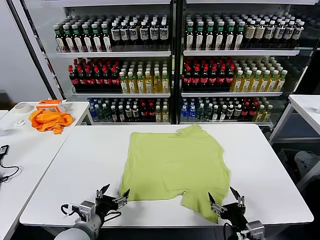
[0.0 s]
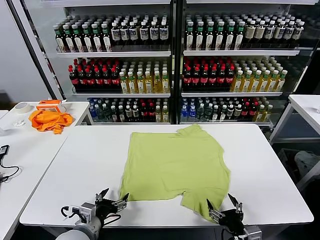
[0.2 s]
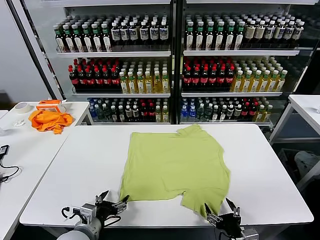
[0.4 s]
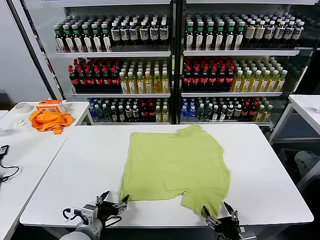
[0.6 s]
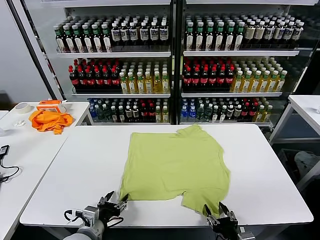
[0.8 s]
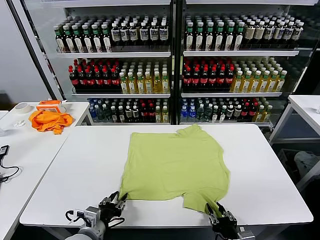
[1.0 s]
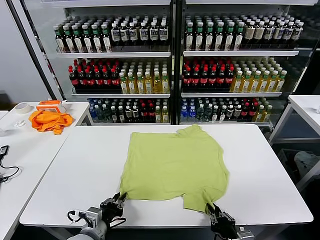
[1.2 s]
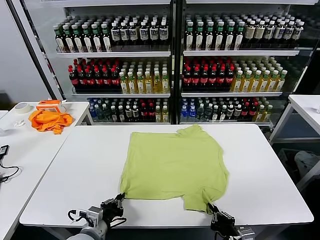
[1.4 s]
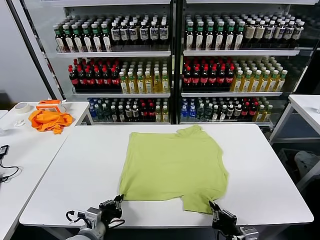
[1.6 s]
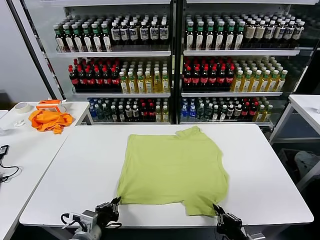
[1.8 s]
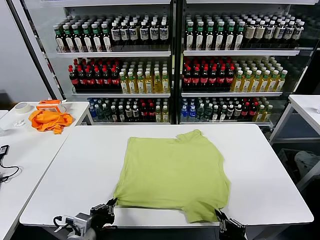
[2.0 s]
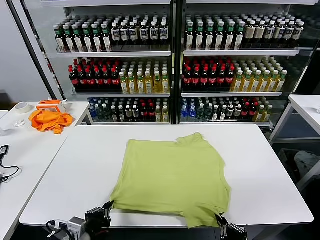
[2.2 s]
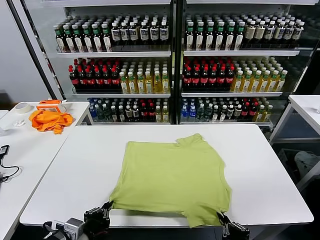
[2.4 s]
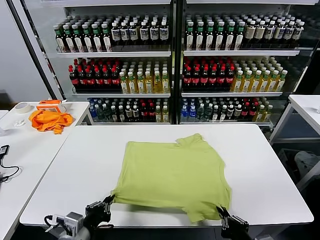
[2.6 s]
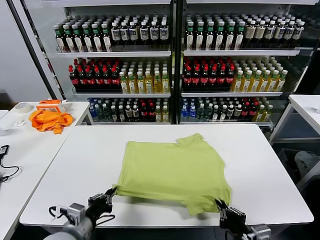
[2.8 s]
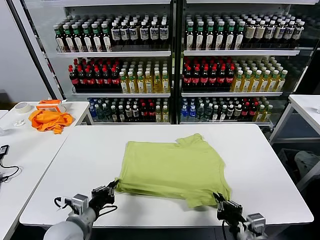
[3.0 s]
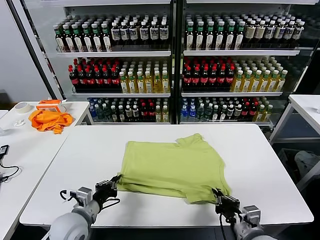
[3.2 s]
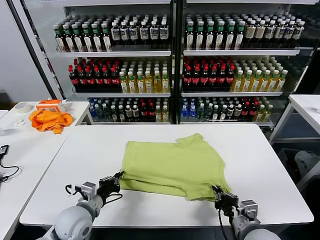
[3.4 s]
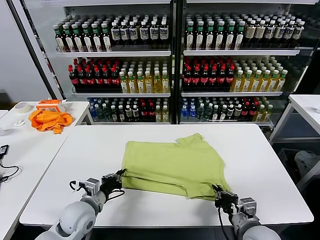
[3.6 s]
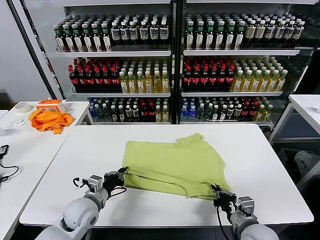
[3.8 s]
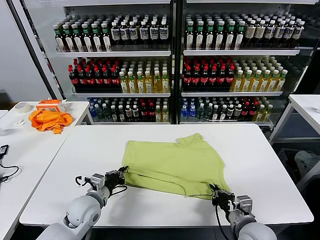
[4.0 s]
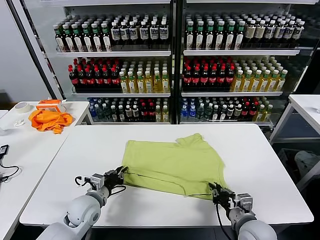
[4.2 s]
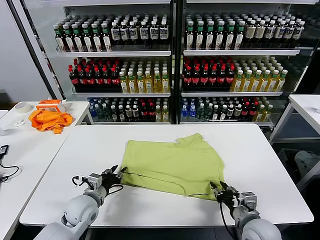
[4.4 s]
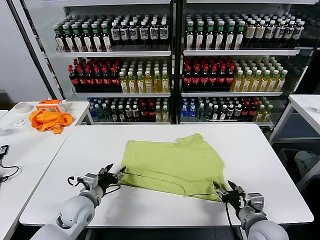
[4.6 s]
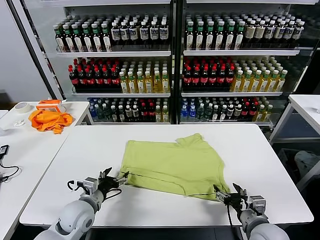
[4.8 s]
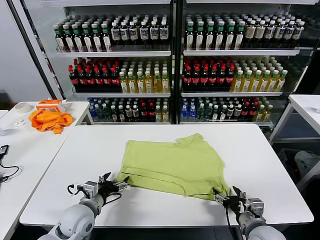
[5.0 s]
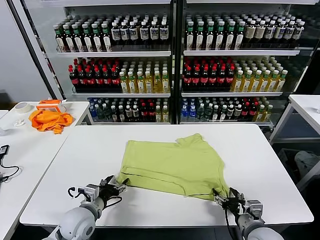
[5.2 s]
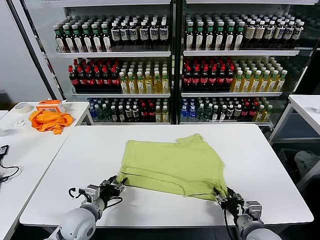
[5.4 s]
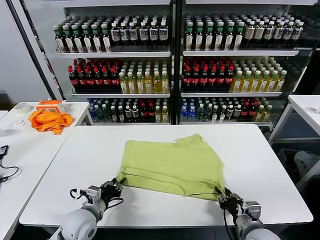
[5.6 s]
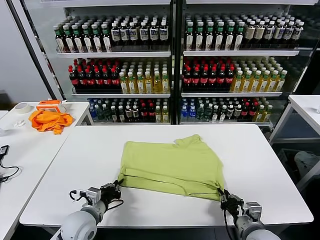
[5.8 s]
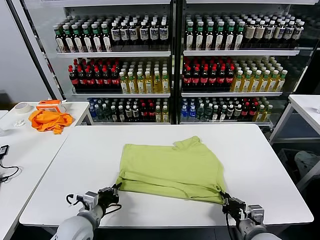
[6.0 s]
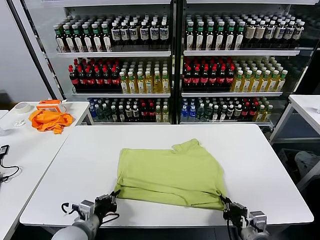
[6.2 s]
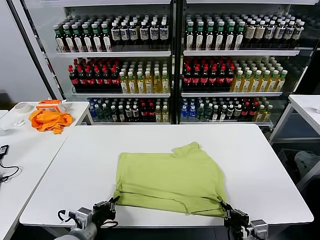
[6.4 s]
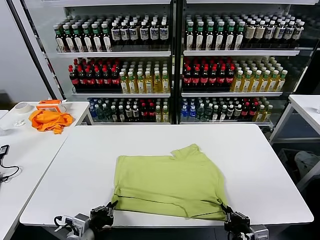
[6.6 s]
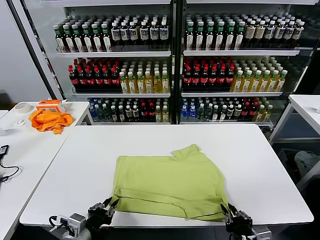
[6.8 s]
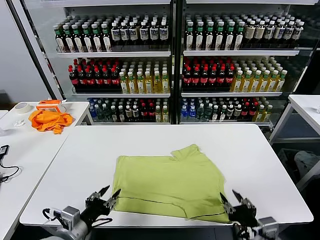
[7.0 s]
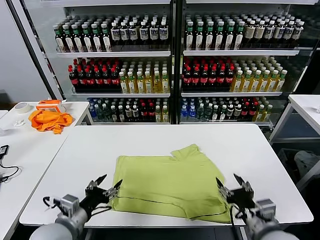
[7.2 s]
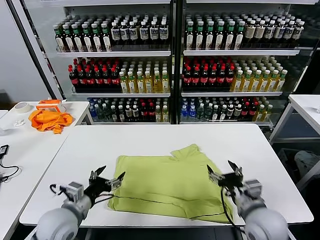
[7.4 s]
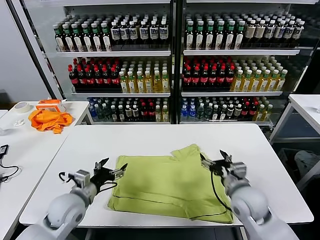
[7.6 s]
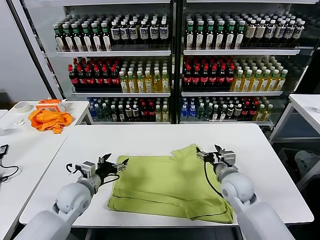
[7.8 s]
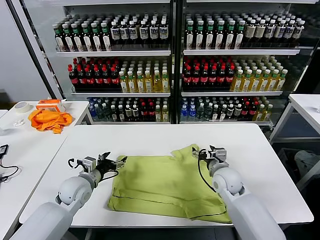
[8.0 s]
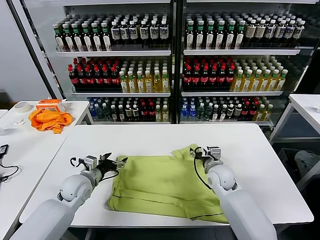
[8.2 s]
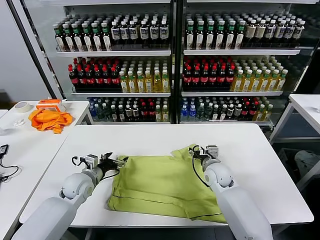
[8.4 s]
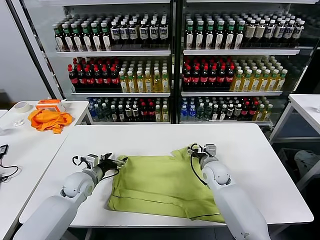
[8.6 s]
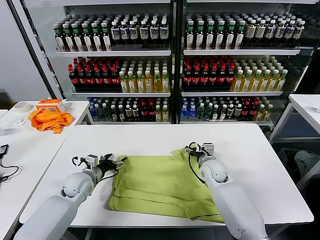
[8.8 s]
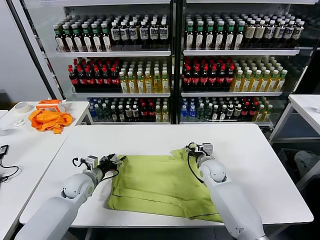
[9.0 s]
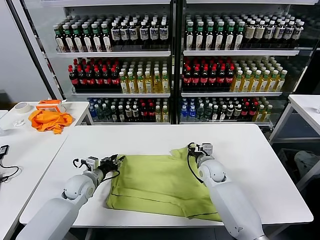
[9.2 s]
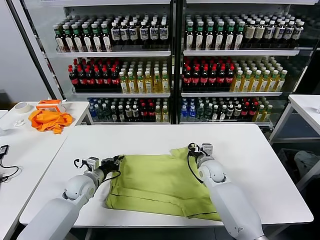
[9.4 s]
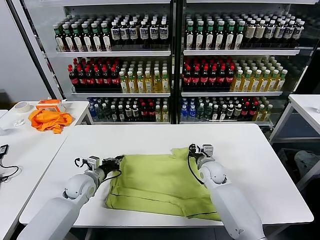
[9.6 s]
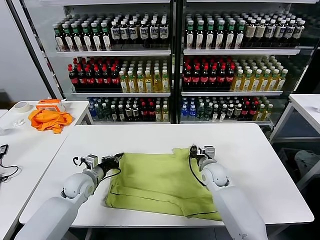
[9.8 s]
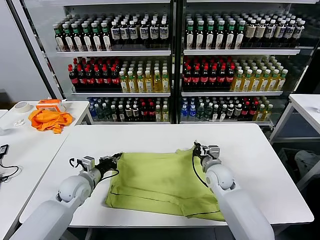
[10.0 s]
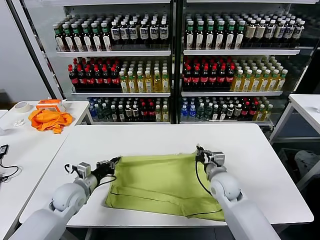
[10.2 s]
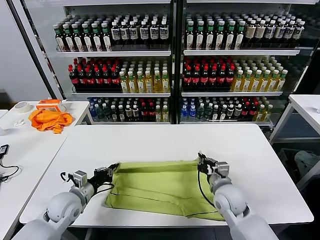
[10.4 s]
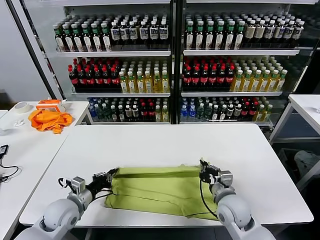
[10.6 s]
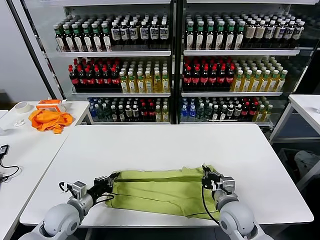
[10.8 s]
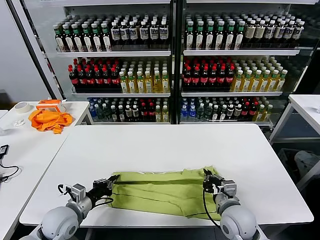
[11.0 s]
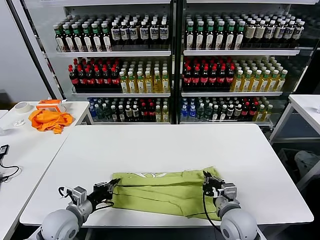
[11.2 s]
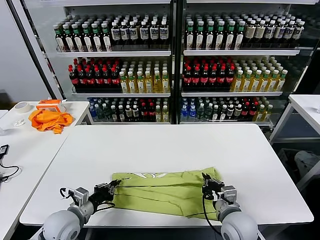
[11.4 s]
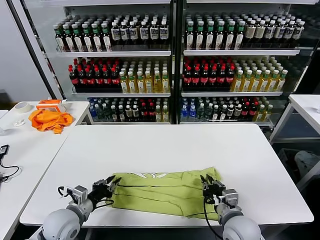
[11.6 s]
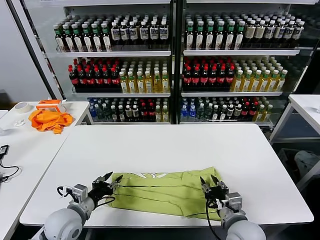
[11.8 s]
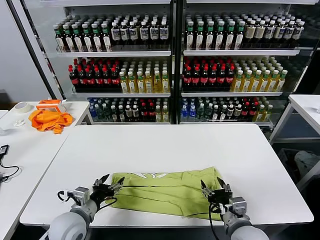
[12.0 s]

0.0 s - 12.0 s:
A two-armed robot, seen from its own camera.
Task of the whole recording: fold and organize the clothes.
Step, 0.0 s - 1.4 s: use both grippers simultaneously to clamp the lower edge of the clothing fabric.
Step, 1.6 s - 4.4 s: use both grippers to drag the lower edge of the fabric forward and fold it over the upper edge.
Step, 4.6 s - 6.8 s: Drag the clothes downward with both gripper.
Step, 7.0 s - 9.6 s: use both grippers simultaneously to clamp the upper edge of the clothing fabric.
Step, 9.8 s - 11.6 s: use both grippers to drag the upper edge of the fabric backward and fold it over the lower edge.
1.6 s - 3.0 s: The right gripper heads forward, covering approximately 5 cm. Meanwhile the left gripper moves roughly 5 cm.
3.0 s - 4.4 s: The right gripper moves some 5 cm, and opens its fingers. Meanwhile the left gripper is displaced forward by about 10 cm, and opens its fingers.
4.4 s - 6.0 s: The right gripper closes. Meanwhile the left gripper heads backward, covering about 10 cm, and closes.
6.0 s - 7.6 s: The left gripper shifts approximately 5 cm forward, and opens up. Meanwhile the right gripper is displaced forward by about 15 cm, and opens its fingers.
7.6 s - 9.0 s: The left gripper goes about 10 cm forward and downward. Meanwhile the right gripper moves forward, downward and to the left, some 15 cm.
9.0 s - 10.4 s: The right gripper travels backward by roughly 15 cm, and closes up. Meanwhile the left gripper travels backward by approximately 10 cm, and closes up.
10.4 s - 12.0 s: The left gripper is displaced backward by approximately 5 cm, and opens its fingers, while the right gripper goes approximately 10 cm backward, and opens its fingers.

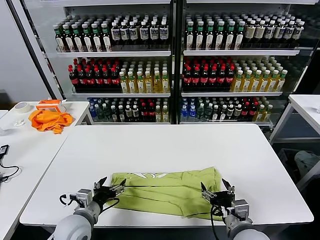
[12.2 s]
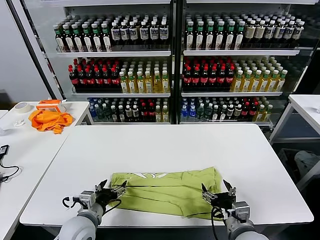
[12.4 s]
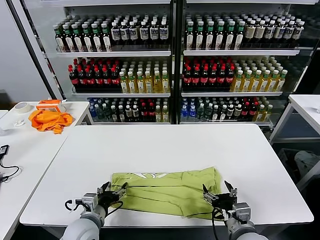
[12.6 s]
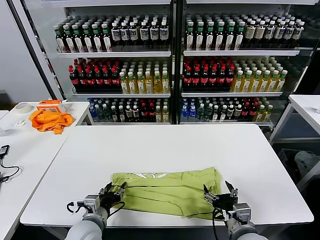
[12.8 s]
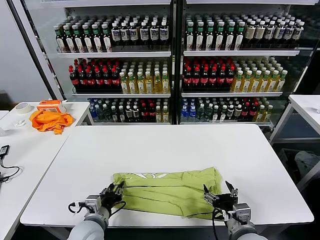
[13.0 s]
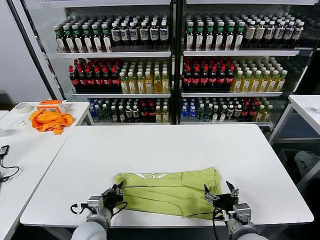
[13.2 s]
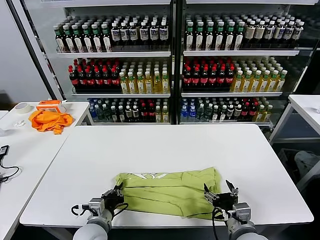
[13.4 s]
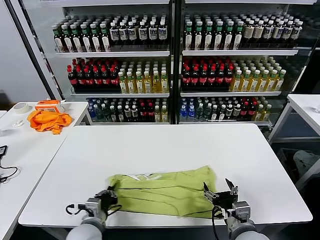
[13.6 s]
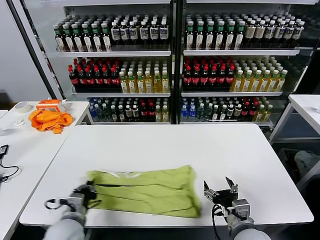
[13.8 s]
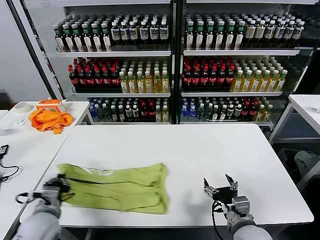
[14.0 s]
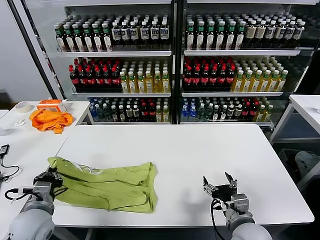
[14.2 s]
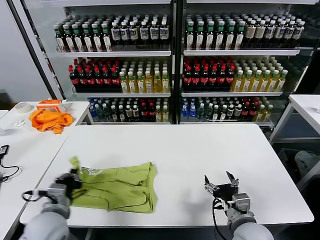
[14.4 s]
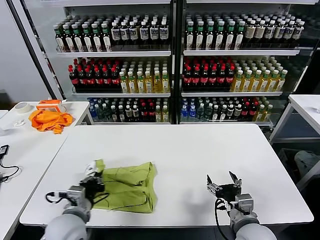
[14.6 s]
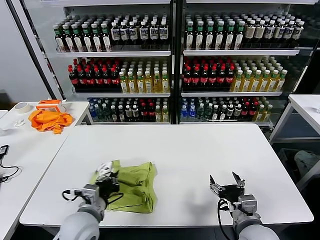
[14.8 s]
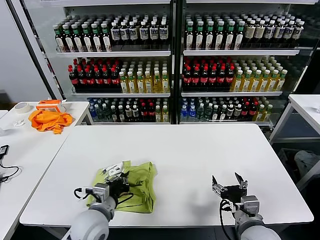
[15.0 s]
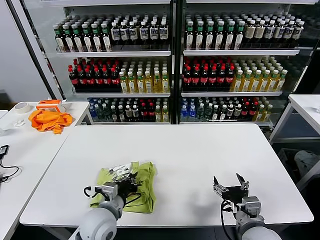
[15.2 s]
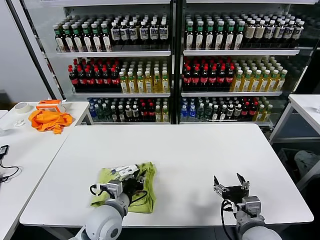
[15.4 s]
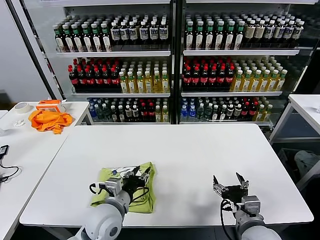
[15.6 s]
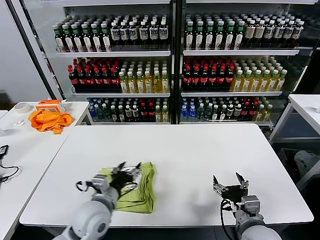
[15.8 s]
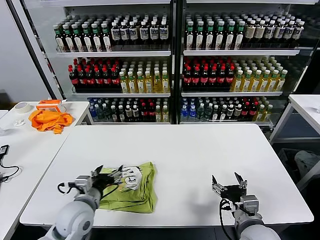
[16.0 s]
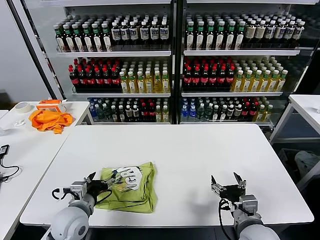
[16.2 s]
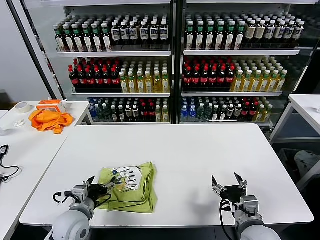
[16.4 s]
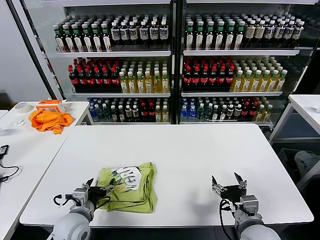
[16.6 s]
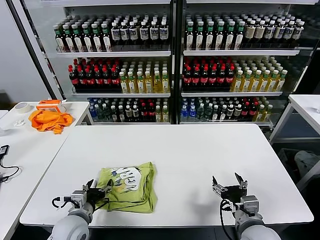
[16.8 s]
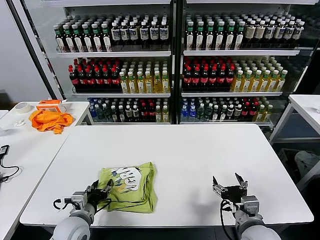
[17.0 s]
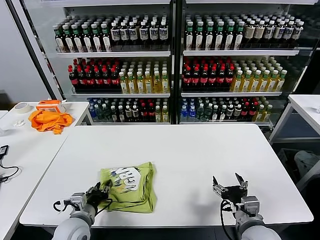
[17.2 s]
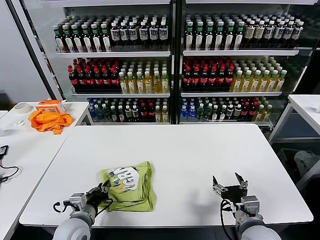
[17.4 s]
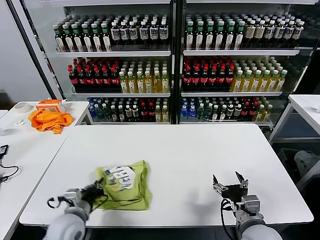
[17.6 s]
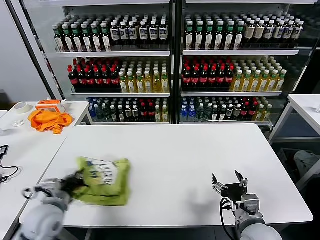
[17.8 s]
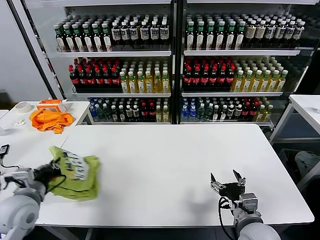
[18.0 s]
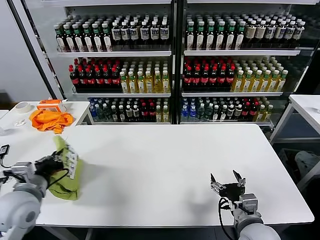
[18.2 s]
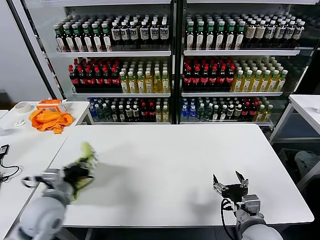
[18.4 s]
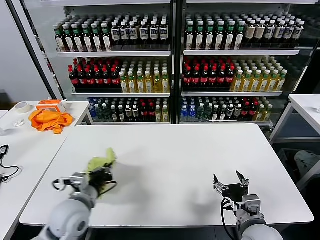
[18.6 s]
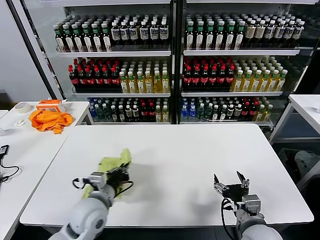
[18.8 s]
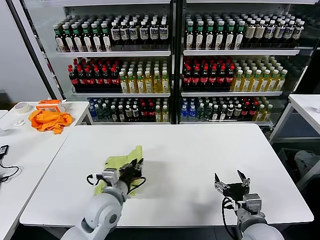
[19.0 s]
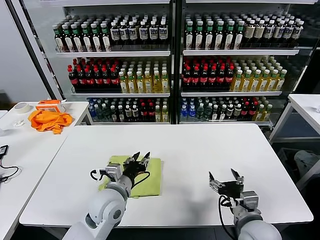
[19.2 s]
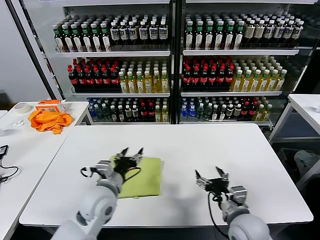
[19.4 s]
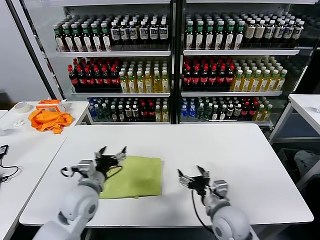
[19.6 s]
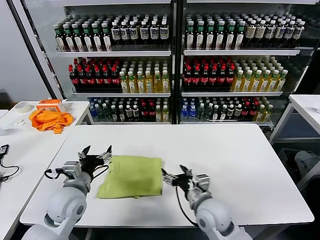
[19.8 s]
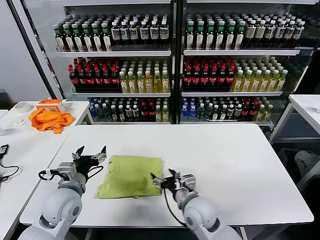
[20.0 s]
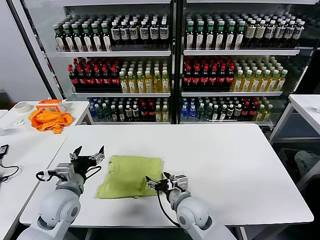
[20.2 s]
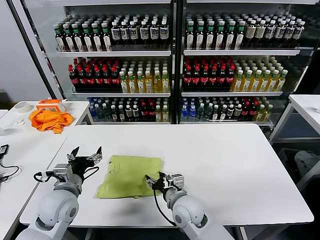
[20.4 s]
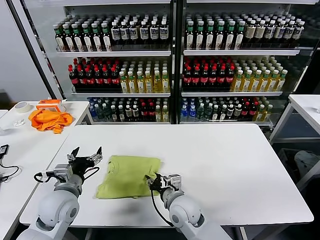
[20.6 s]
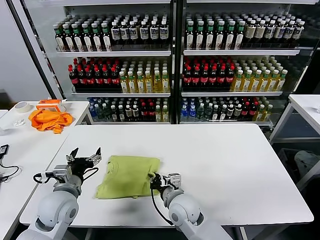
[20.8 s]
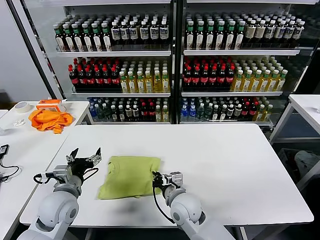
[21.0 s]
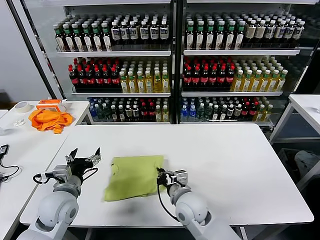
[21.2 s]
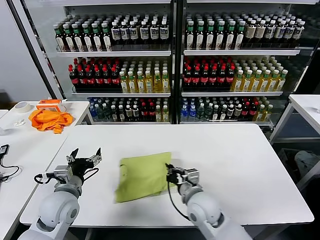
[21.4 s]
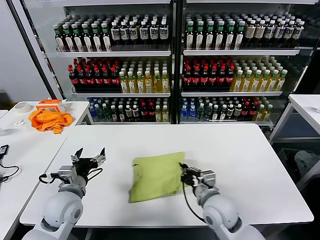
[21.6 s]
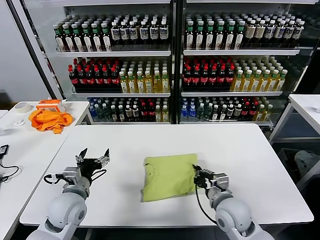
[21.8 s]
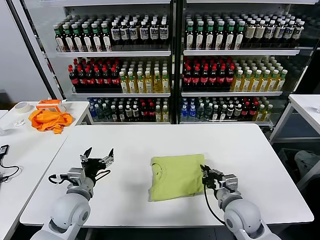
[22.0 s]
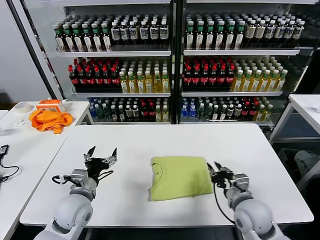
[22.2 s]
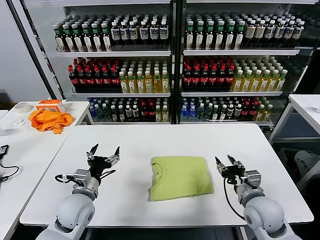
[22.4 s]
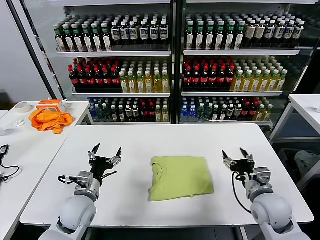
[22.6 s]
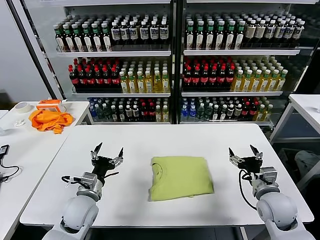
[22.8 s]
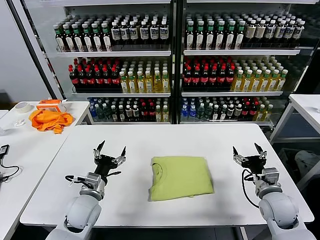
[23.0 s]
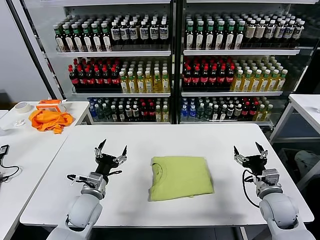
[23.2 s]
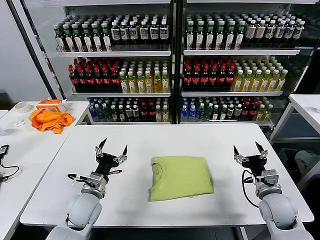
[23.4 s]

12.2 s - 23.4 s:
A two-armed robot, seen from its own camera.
Task of the whole recording: fold and organize the clothes.
Step, 12.2 s - 13.2 s: use the left gripper to clamp the left edge of the fabric.
Step, 13.4 s - 15.4 s: use the left gripper to drag the left edge of the fabric to the left and folds it over the right edge.
Step, 15.6 s - 19.0 s: Flip the folded clothes over with left gripper.
Step, 19.4 s - 22.0 s: Drag the clothes to the center of the table.
12.2 s - 13.8 s: The left gripper closes.
13.8 s - 15.4 s: The left gripper heads to the right, covering roughly 10 cm.
15.4 s - 17.0 s: The left gripper shifts roughly 10 cm to the left, and opens up.
17.0 s - 18.6 s: The left gripper goes about 10 cm upward, and closes up.
18.6 s - 20.2 s: The right gripper shifts approximately 20 cm to the left and forward, while the left gripper moves some 10 cm to the right and comes back, and opens.
20.2 s - 21.8 s: The right gripper heads to the right, covering about 10 cm, and closes up.
21.8 s - 23.4 s: The right gripper travels to the right by roughly 15 cm, and opens up; the left gripper moves approximately 5 cm.
